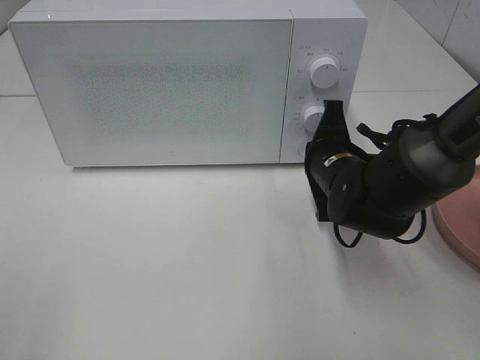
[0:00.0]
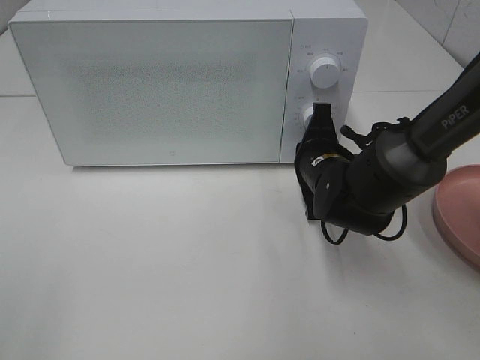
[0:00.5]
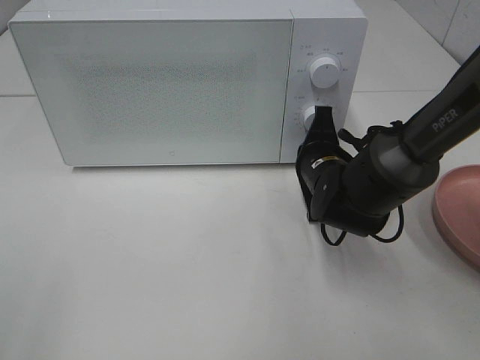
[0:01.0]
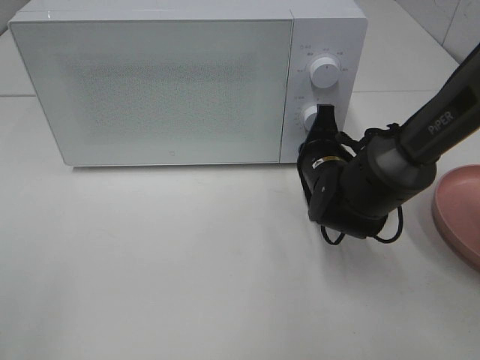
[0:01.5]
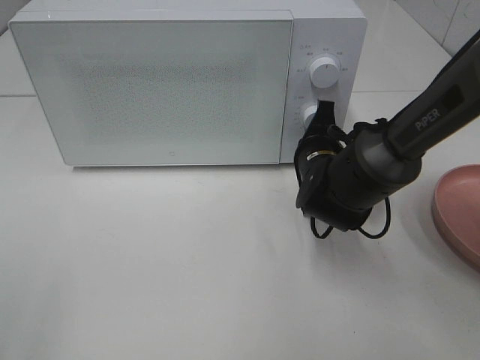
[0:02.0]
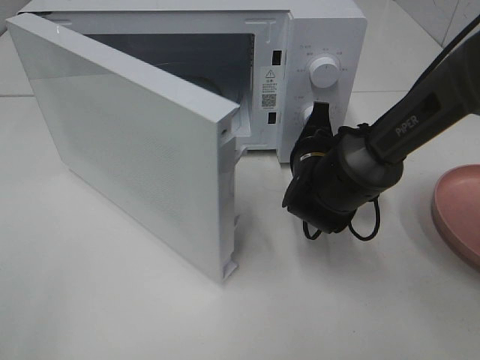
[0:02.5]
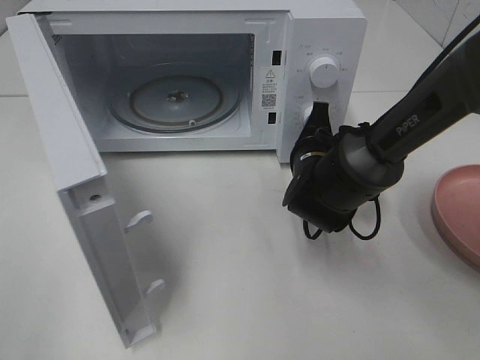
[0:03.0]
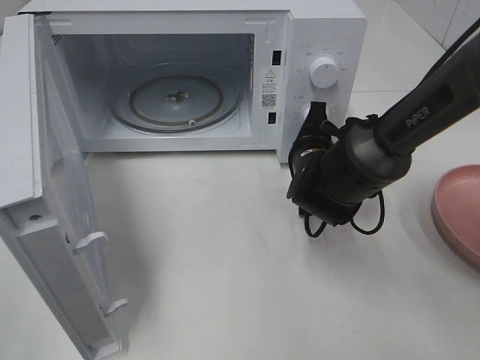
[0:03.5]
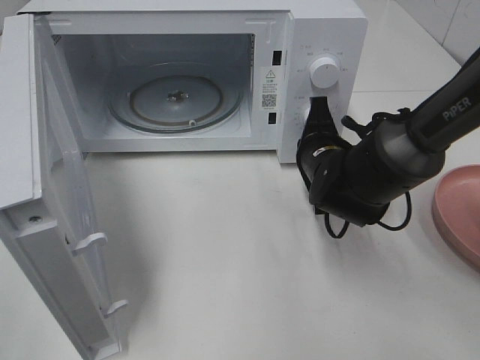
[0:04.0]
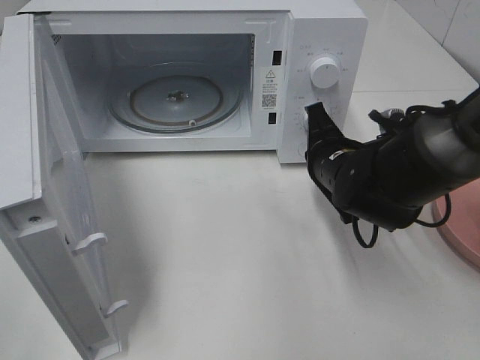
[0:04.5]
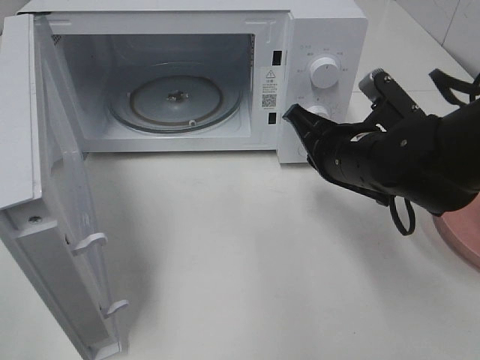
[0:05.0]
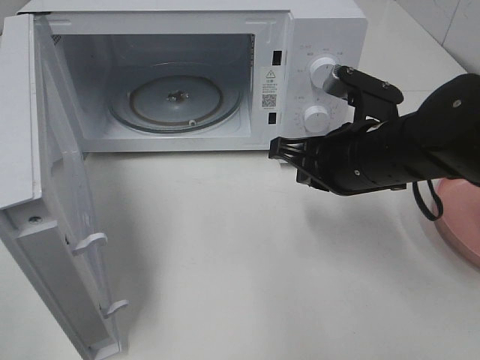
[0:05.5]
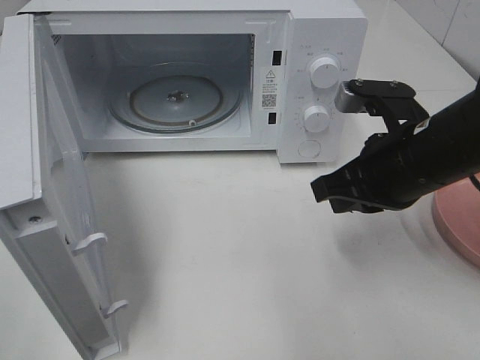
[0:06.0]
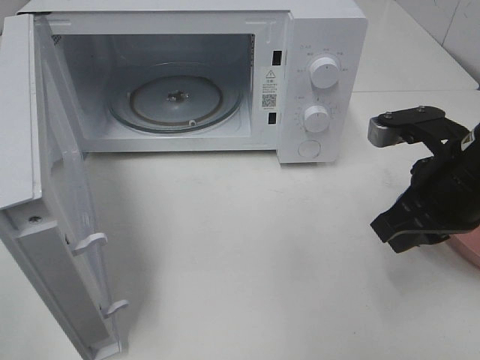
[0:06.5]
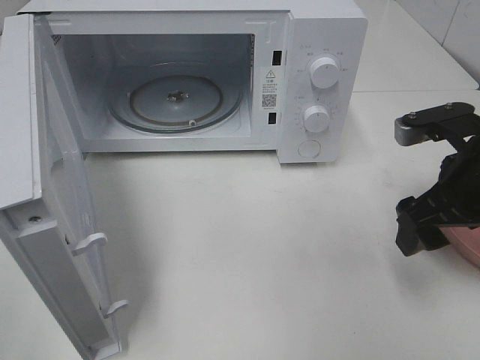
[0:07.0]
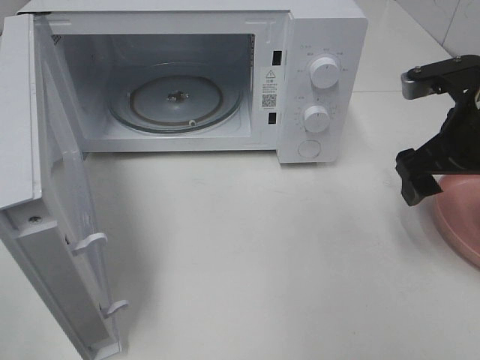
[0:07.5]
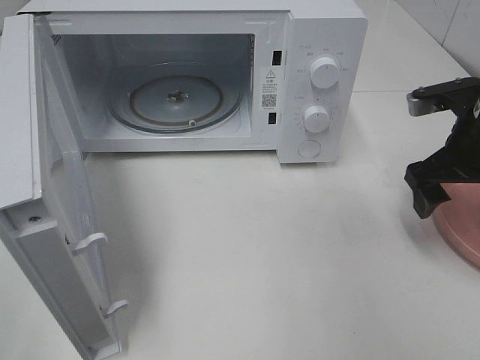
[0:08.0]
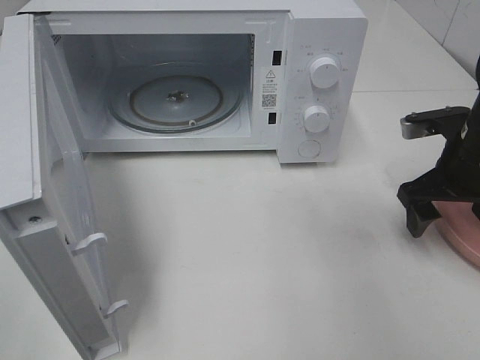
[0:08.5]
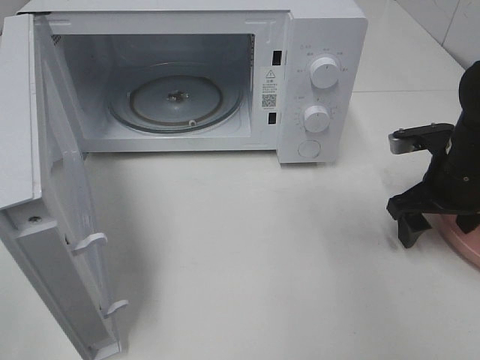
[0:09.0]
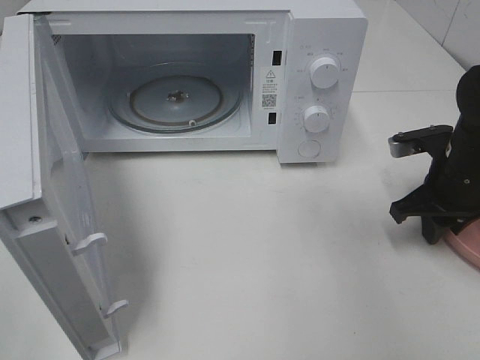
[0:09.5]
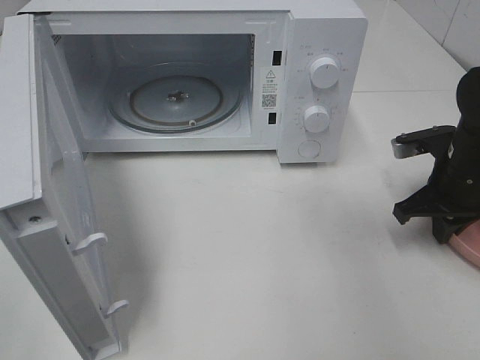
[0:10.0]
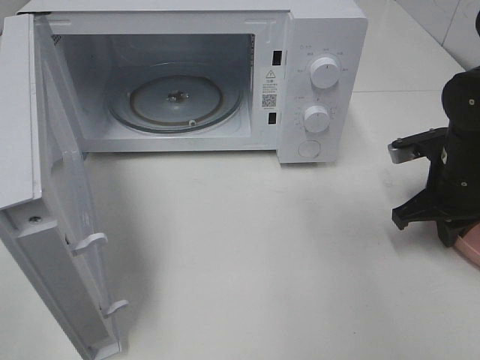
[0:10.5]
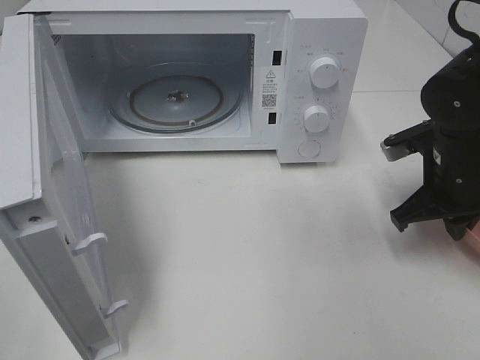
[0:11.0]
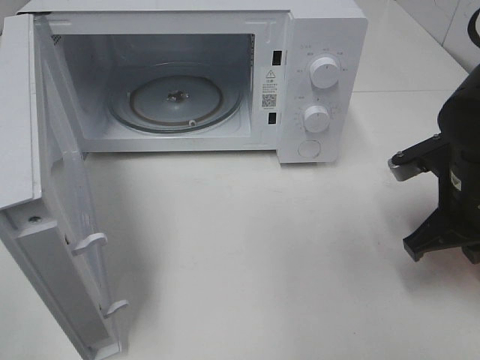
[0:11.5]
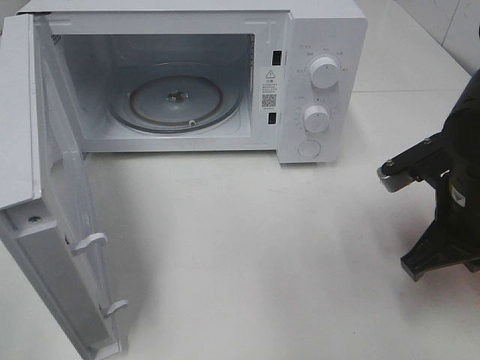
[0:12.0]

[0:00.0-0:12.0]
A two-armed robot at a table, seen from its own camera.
Task of the whole recording: Heat the burger.
Step, 0:00.0 to 0:04.0: Right hand: press the switch.
Step, 0:04.5 to 0:10.0: Right hand: grab the plate with the hamburger.
0:00.0 to 0:02.0: There are only small adjustments of the grippers.
0:04.0 to 0:06.0: The right gripper moves upward and backward, roughly 15 cm.
0:06.0 to 0:08.0: The right gripper heads to the right and forward, covering about 10 cm, and opens its fingers.
0:08.0 to 0:10.0: The right gripper is displaced downward by some 5 cm, and closes its fingers.
0:10.0 to 0:12.0: The right gripper goes approximately 10 cm backward, to the left and upward.

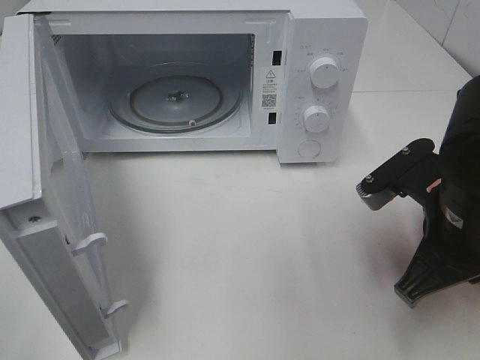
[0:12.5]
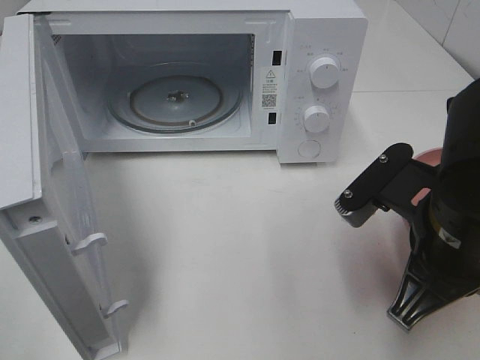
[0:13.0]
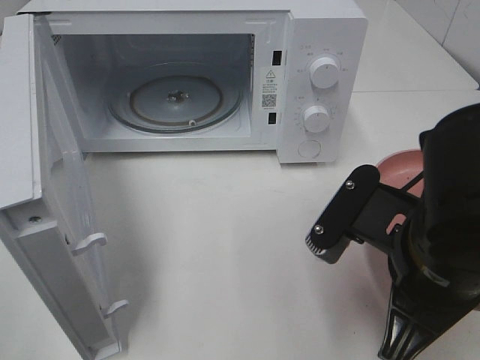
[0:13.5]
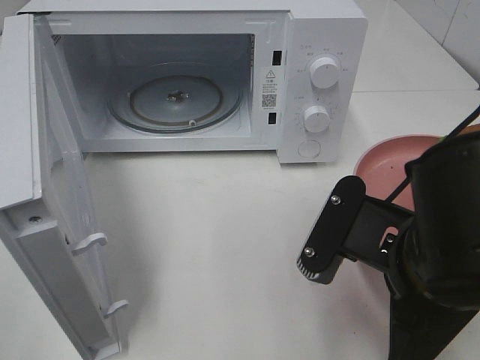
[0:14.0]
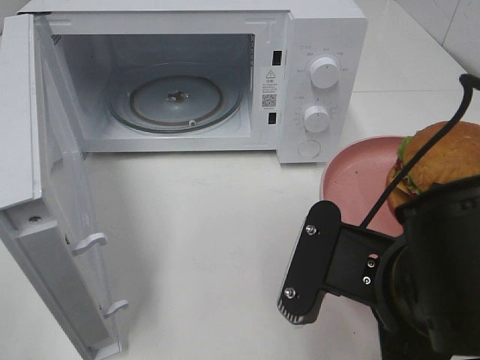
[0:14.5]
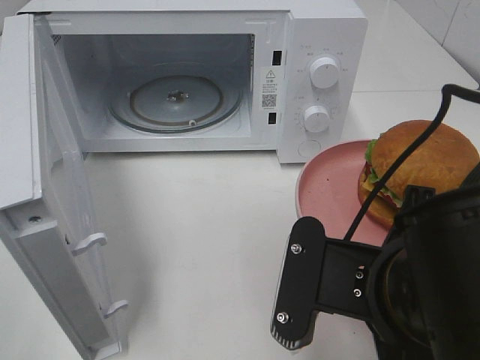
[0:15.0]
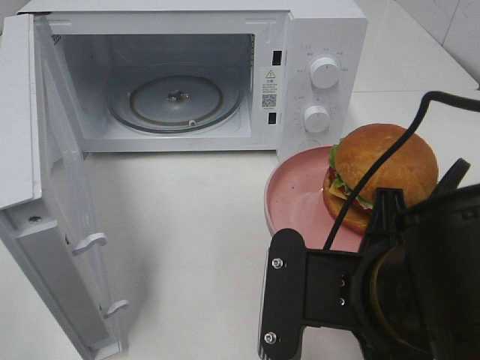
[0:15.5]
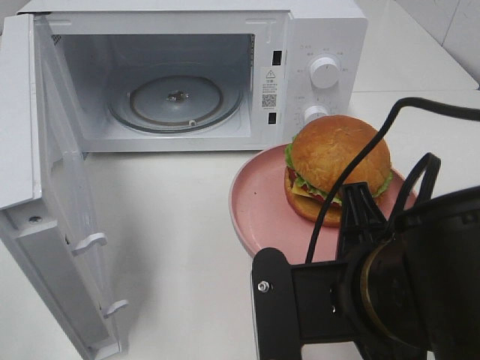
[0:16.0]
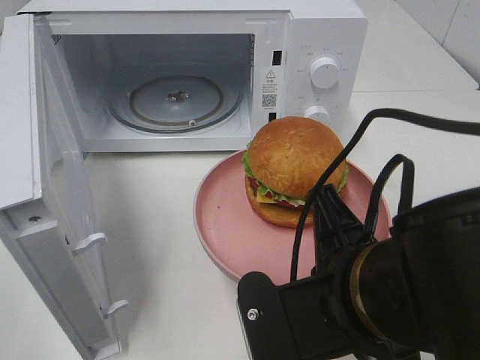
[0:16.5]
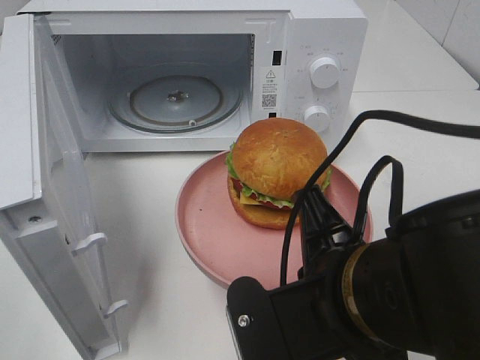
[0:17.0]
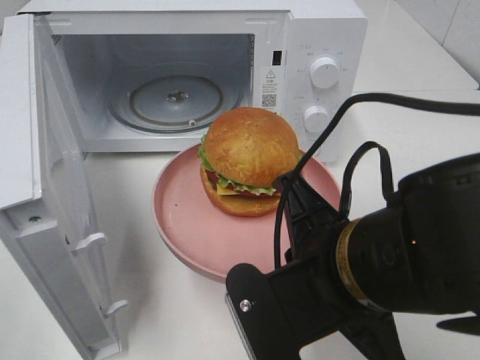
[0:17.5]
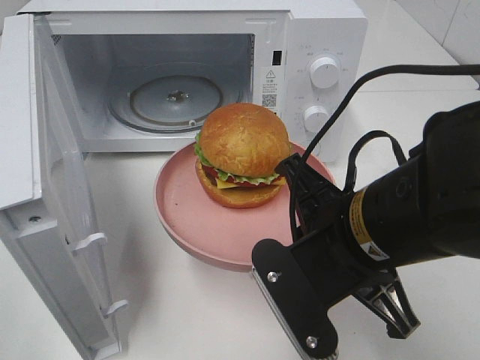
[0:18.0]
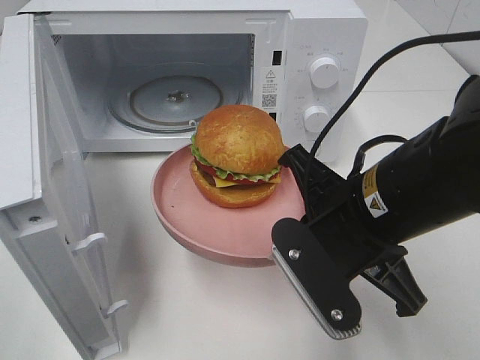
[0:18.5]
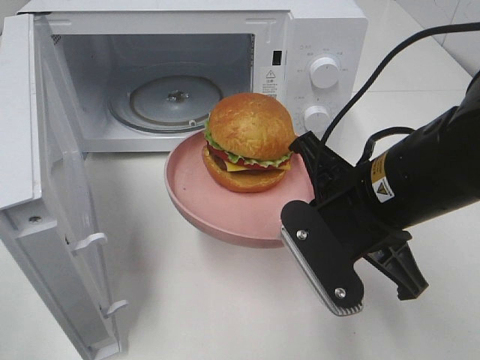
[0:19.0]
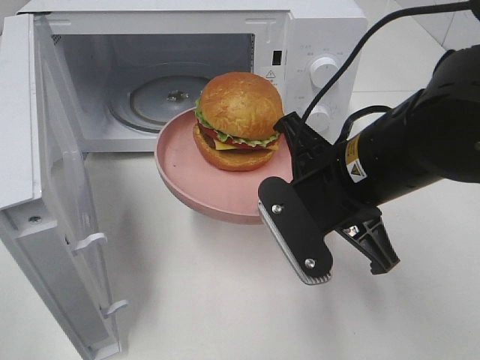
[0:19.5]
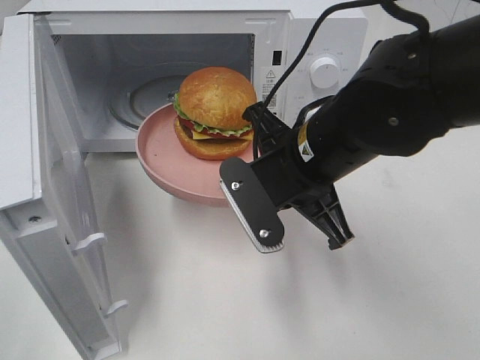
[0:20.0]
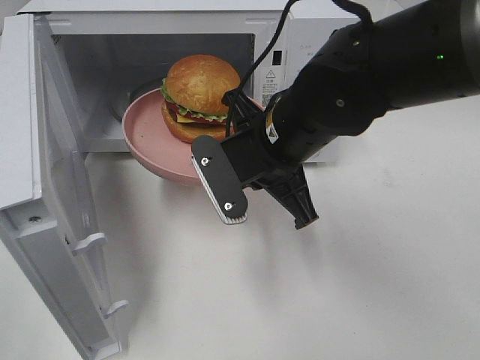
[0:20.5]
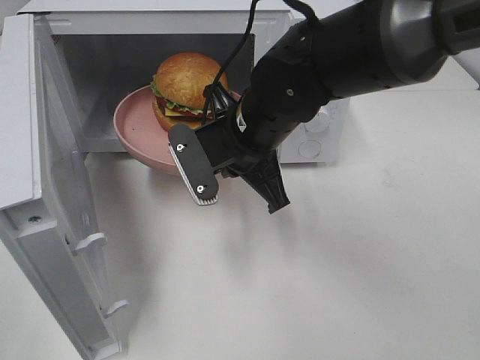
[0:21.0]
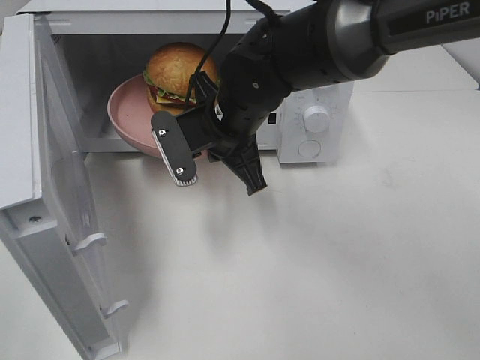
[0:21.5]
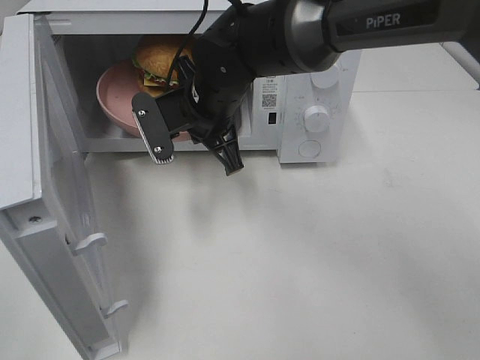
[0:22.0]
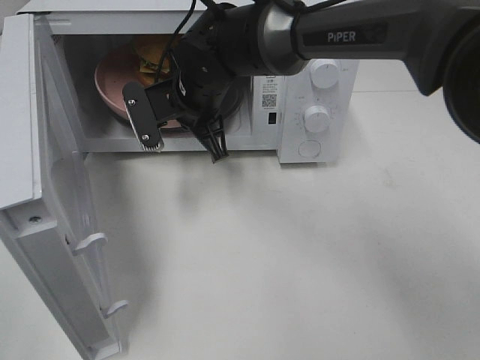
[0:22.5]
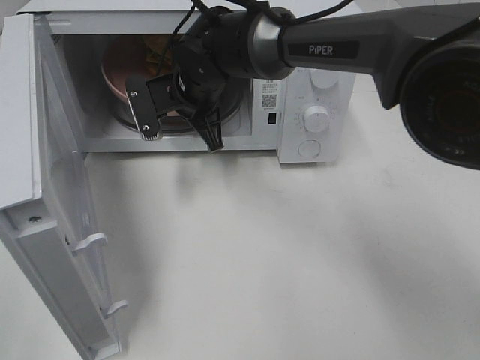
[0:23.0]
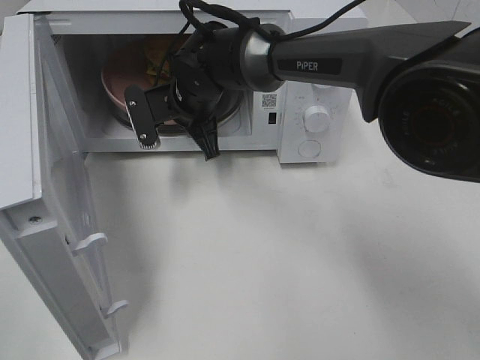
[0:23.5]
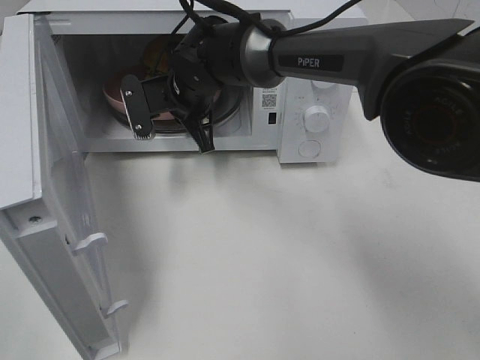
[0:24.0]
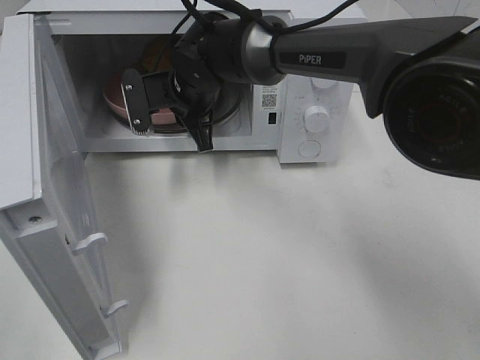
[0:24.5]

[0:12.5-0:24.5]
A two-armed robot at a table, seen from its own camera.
Task of the whole recording: Heat the burger.
Step, 0:12.5 to 0:24.0: Right hand: place the plate in the microwave.
0:12.5 to 0:14.5: The right gripper heads backward and to the left, covering roughly 10 cm.
0:16.5 to 0:18.5: The right gripper is displaced forward by about 10 cm.
0:18.5 to 0:20.5: The right gripper goes approximately 10 cm forward and to the left.
0:20.5 to 0:22.5: The right gripper goes approximately 15 cm forward and to the left.
0:22.5 to 0:24.5: The right gripper opens up.

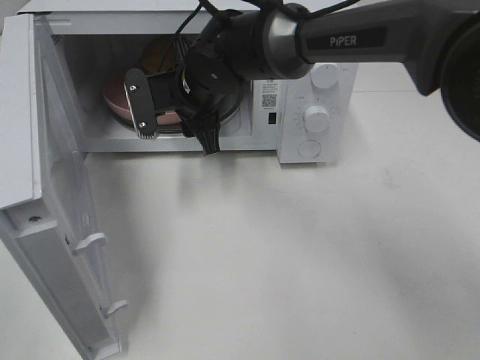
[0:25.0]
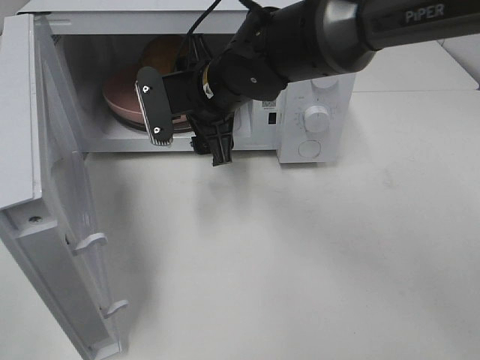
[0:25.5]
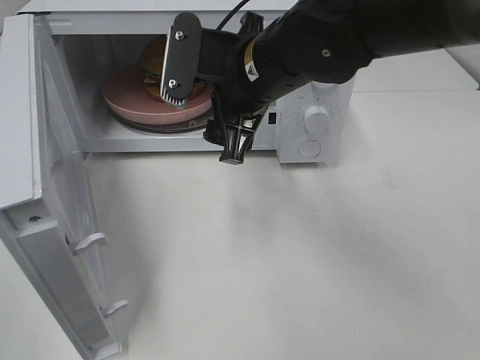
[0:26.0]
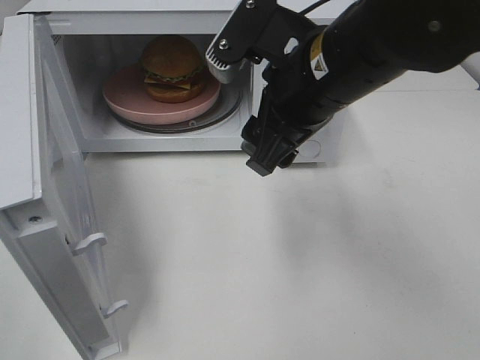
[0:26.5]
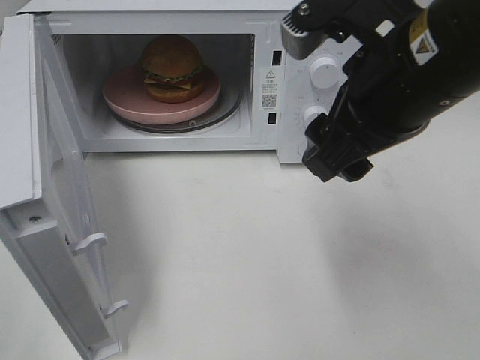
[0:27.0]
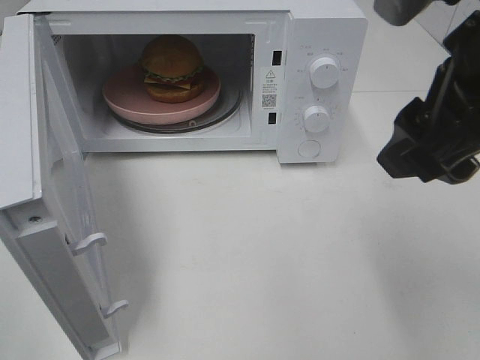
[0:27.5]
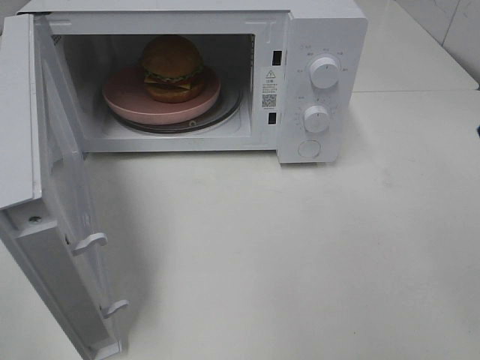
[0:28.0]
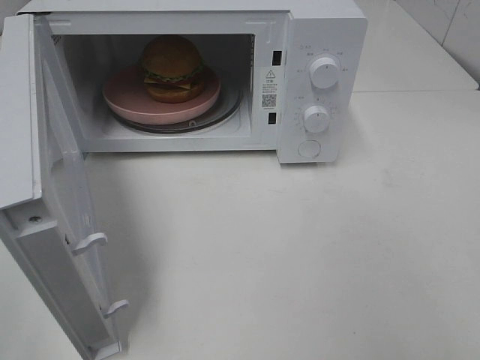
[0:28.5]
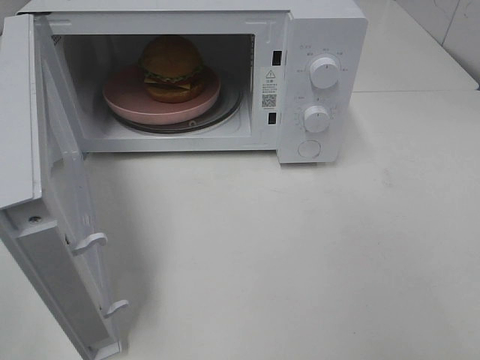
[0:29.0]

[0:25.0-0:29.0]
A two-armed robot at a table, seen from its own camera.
Task of the whole recording: Heat the burger.
0:25.0 to 0:27.0: The right gripper goes roughly 30 cm backward, to the right and upward.
0:27.0 to 0:29.0: The right gripper shifts approximately 25 cm backward and to the right.
